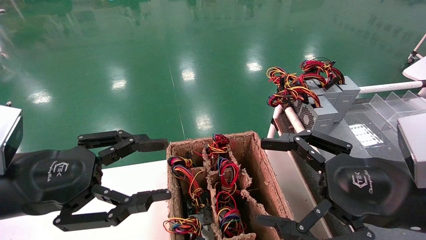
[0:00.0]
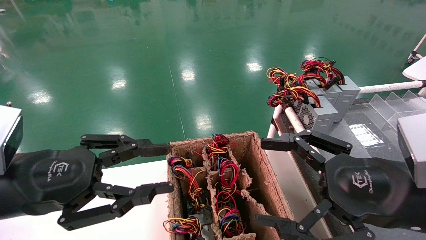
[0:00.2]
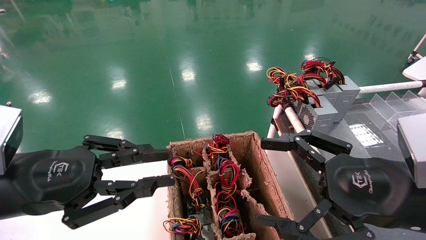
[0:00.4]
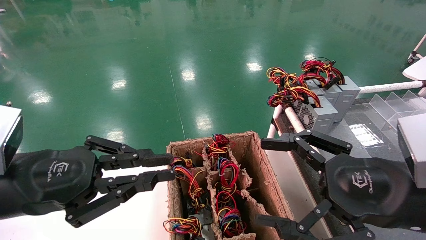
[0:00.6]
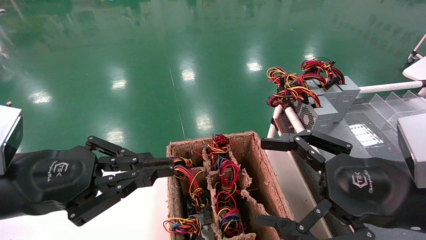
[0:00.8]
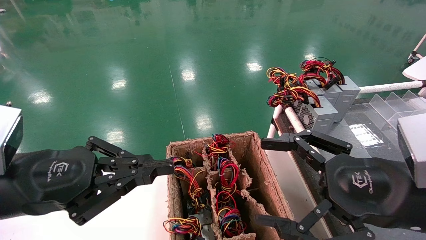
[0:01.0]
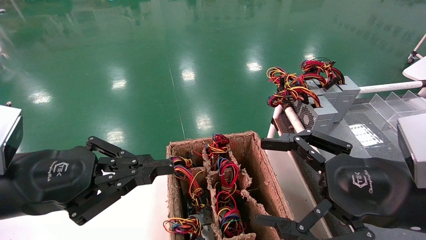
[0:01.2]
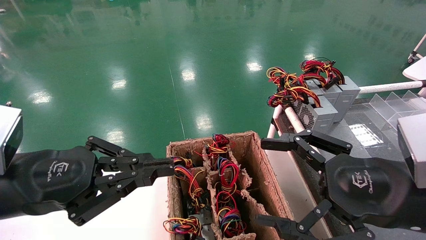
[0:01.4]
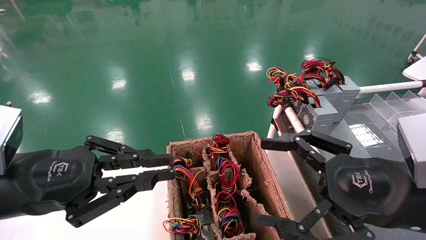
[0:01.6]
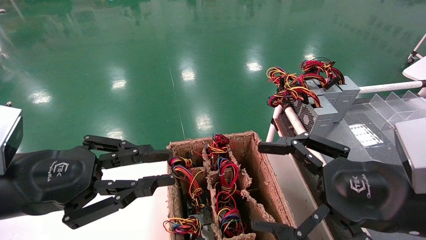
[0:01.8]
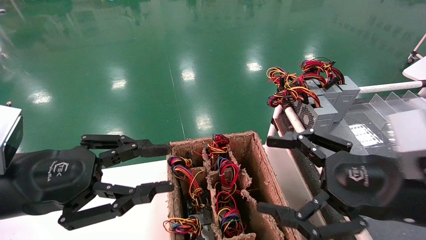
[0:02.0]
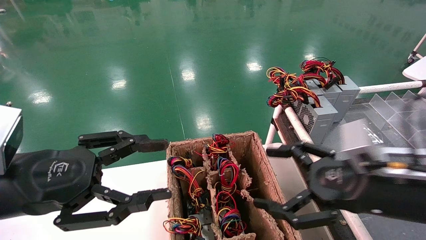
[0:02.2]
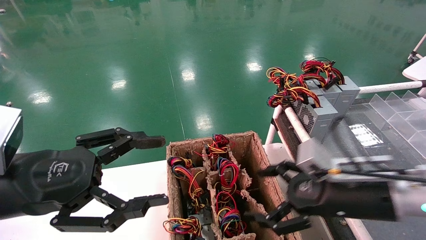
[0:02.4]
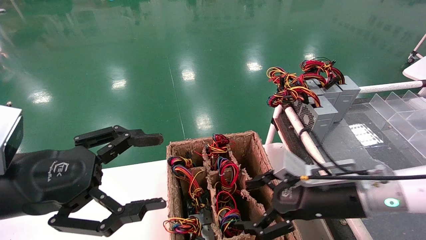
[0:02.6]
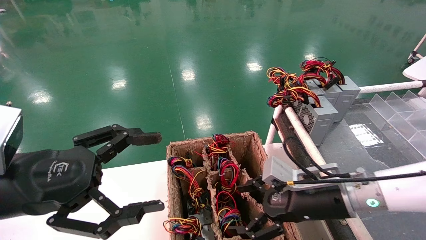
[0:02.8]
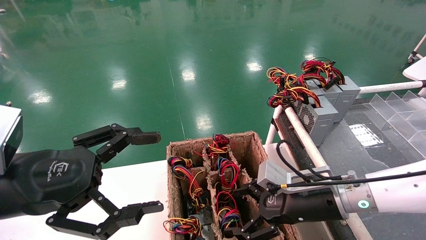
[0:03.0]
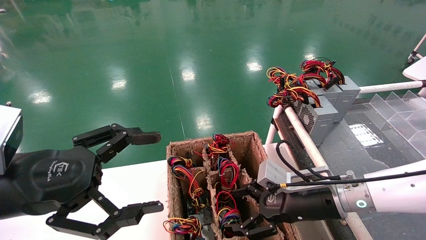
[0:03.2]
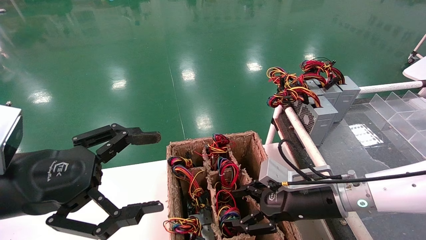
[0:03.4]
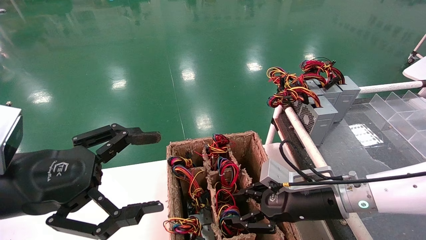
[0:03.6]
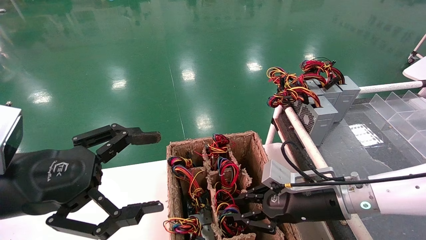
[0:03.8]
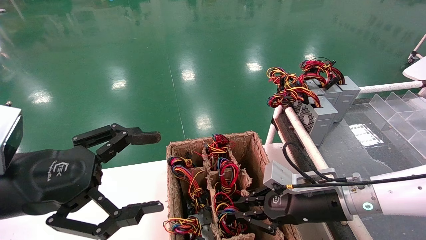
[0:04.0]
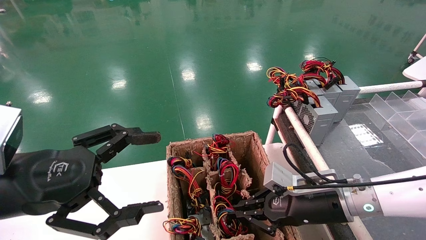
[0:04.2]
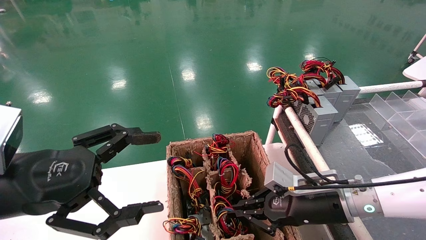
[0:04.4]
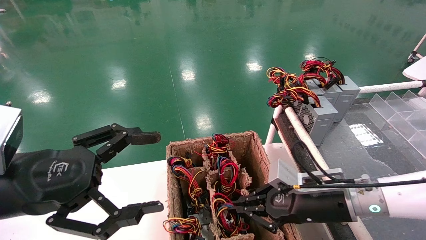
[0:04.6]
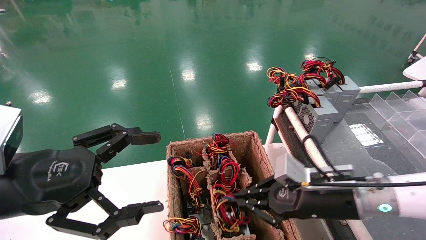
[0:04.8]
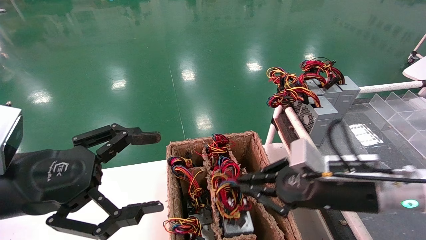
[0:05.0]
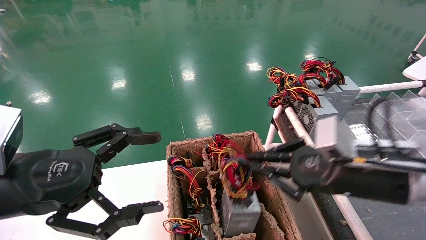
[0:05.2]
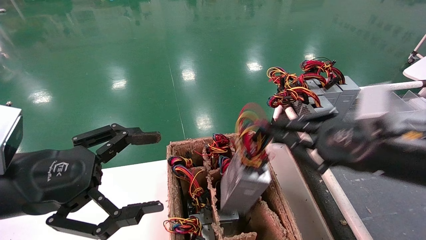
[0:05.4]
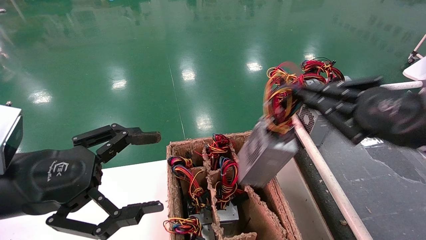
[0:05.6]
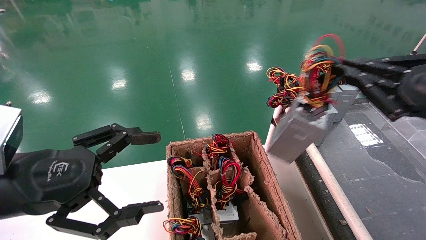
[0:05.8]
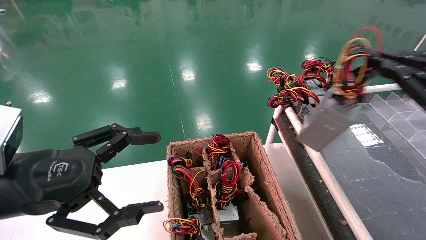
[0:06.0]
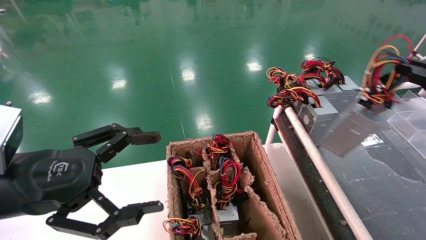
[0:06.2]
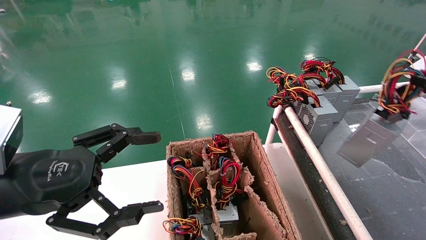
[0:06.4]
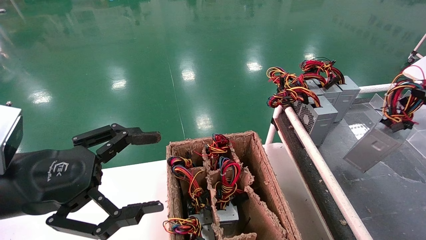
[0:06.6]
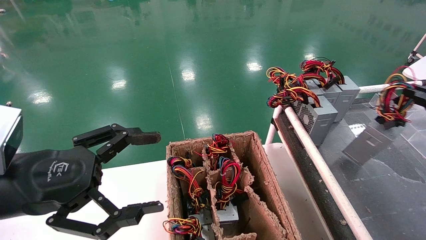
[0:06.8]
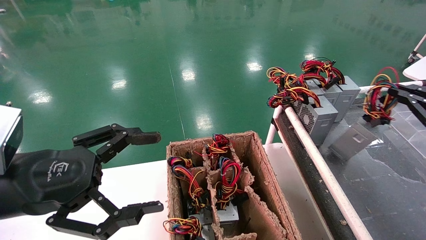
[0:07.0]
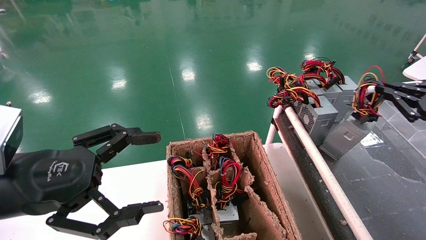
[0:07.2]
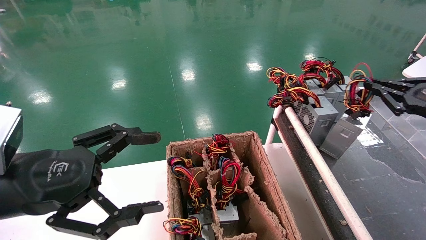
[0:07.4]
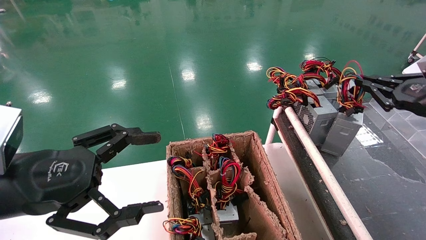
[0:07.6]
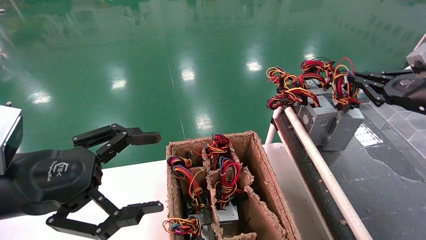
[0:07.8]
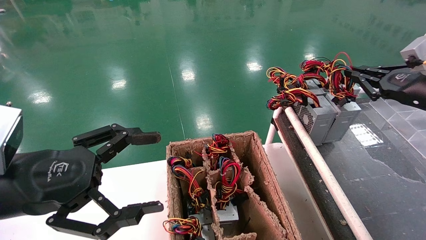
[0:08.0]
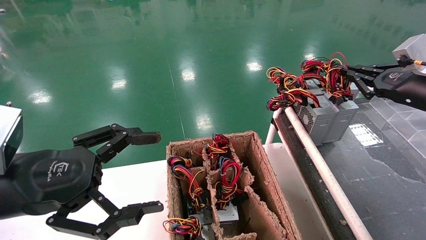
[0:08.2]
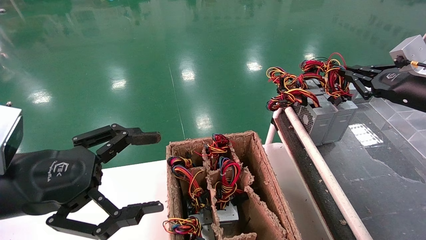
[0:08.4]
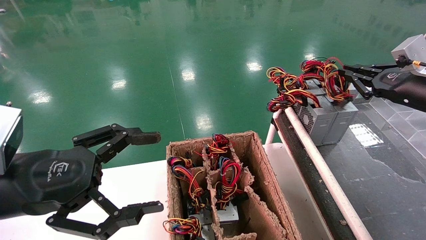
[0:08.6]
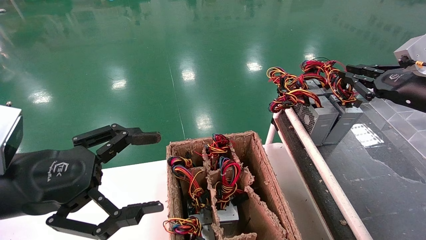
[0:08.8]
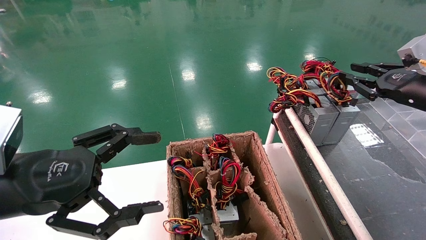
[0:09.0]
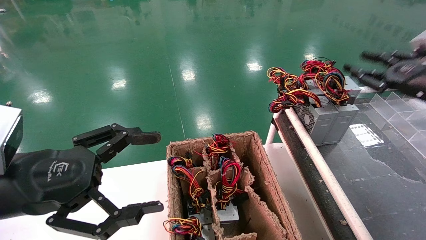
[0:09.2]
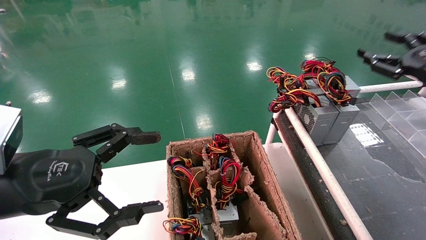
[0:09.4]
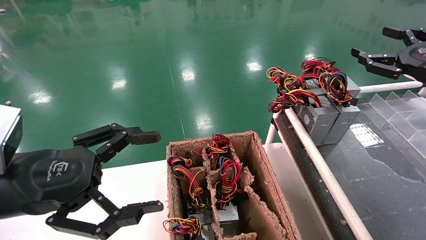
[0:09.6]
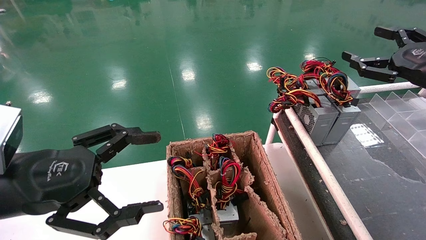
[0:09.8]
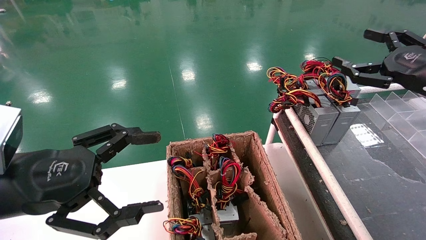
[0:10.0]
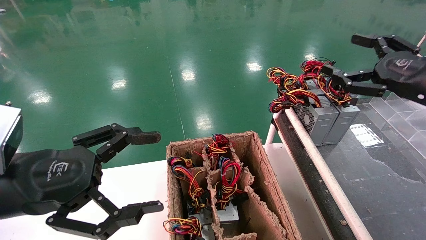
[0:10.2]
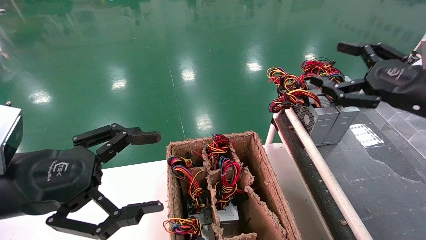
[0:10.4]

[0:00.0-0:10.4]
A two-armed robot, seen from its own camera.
Step, 0:01.0 to 0:04.2: Grab and lift the power supply from the large box.
Step, 0:04.4 to 0:08.6: Place the power supply on the operating table.
0:00.0 to 0:01.4: The left gripper closes up.
0:01.4 to 0:03.0: The right gripper heads forward, downward and to the left, covering approximately 15 cm. The left gripper opens.
0:03.0 to 0:04.4: The right gripper closes its fingers.
0:04.4 to 0:06.0: The right gripper is displaced to the right, upward and backward by approximately 30 cm.
0:06.0 to 0:07.4: The right gripper travels forward and to the right by about 10 cm.
0:07.4 to 0:09.0: The right gripper changes place by some 5 cm.
0:09.0 to 0:10.4: The right gripper is displaced backward and to the left by approximately 10 cm, and opens its fingers.
